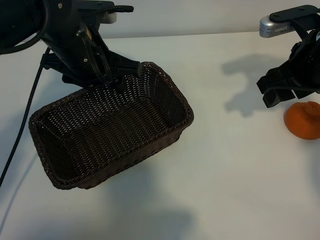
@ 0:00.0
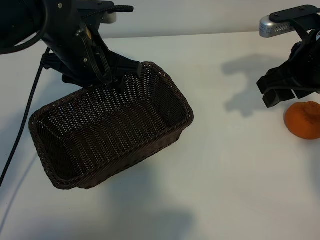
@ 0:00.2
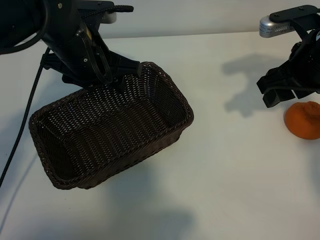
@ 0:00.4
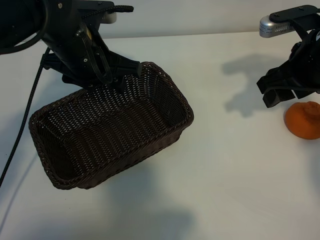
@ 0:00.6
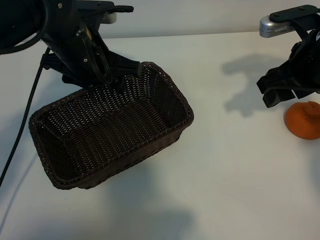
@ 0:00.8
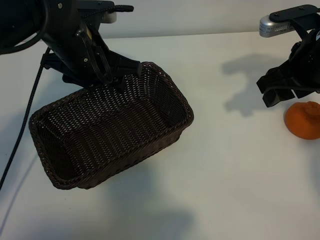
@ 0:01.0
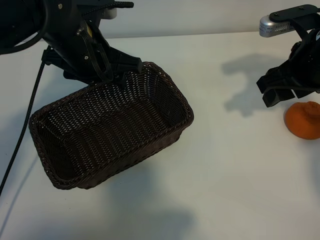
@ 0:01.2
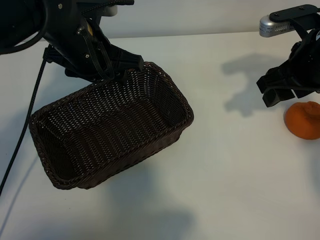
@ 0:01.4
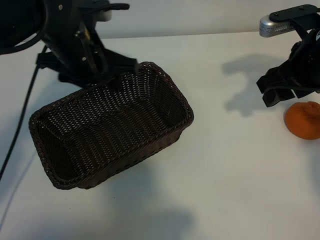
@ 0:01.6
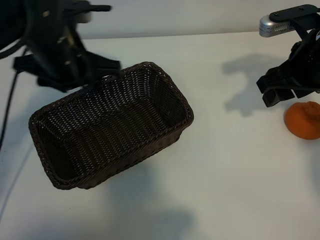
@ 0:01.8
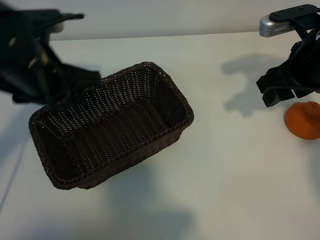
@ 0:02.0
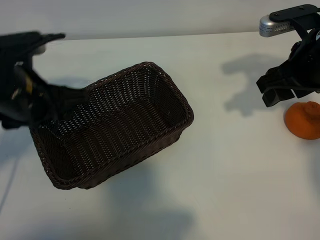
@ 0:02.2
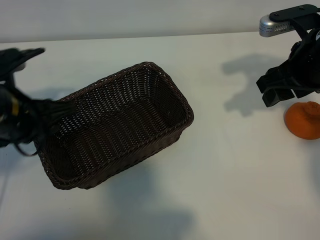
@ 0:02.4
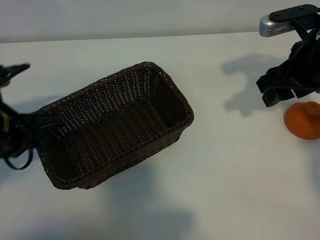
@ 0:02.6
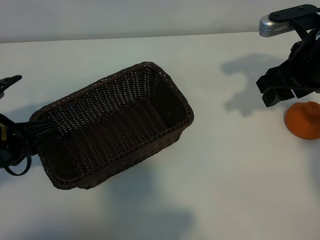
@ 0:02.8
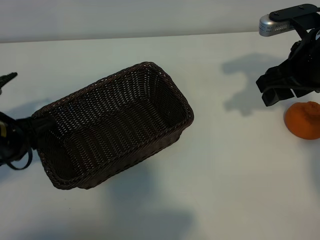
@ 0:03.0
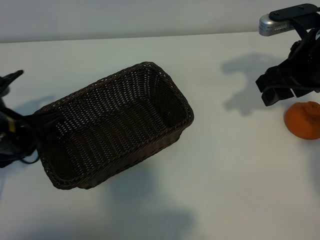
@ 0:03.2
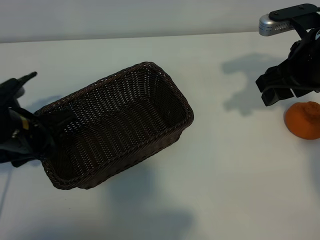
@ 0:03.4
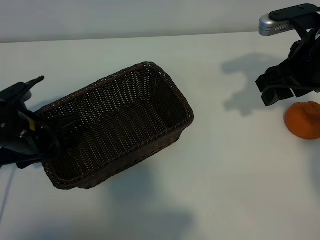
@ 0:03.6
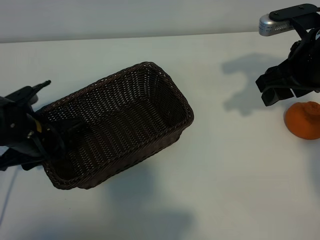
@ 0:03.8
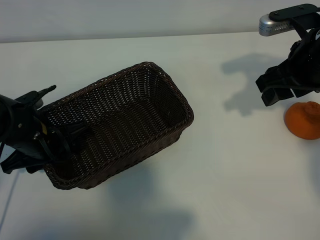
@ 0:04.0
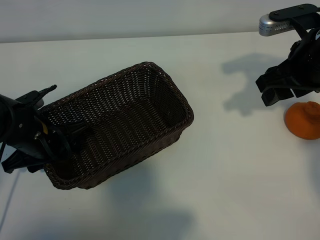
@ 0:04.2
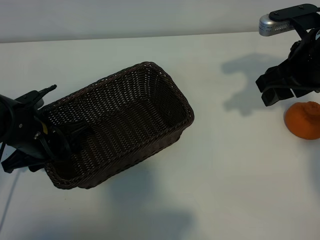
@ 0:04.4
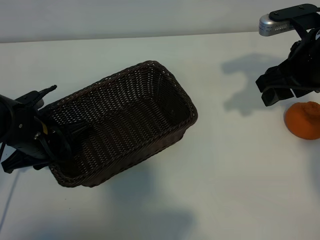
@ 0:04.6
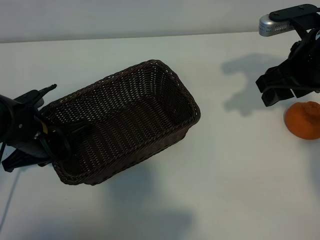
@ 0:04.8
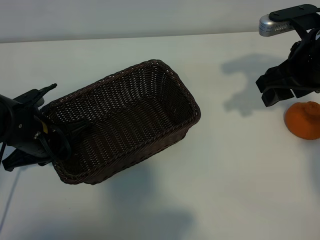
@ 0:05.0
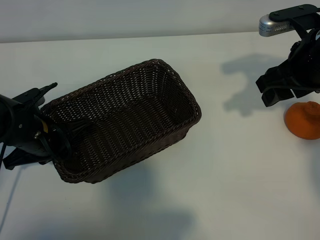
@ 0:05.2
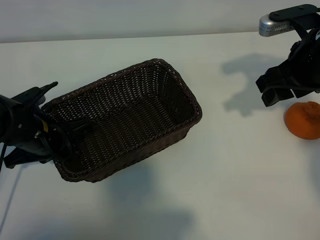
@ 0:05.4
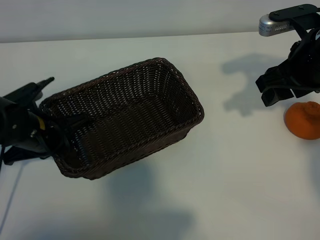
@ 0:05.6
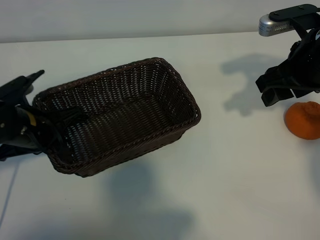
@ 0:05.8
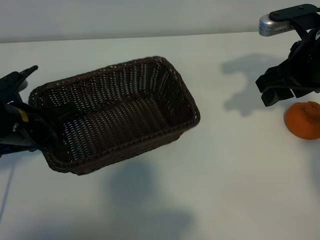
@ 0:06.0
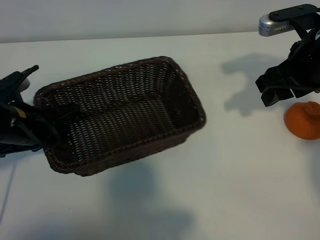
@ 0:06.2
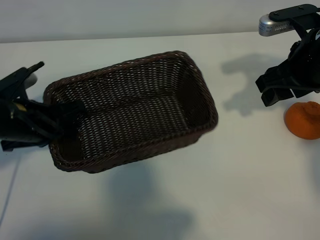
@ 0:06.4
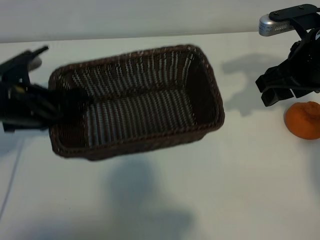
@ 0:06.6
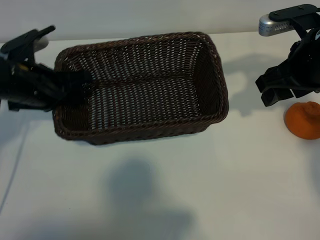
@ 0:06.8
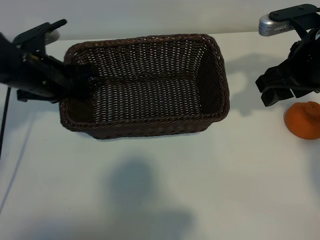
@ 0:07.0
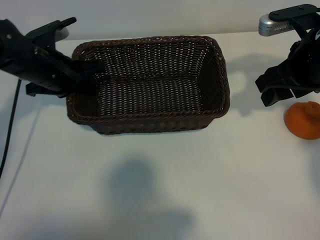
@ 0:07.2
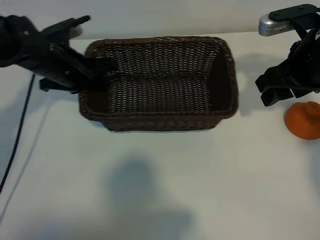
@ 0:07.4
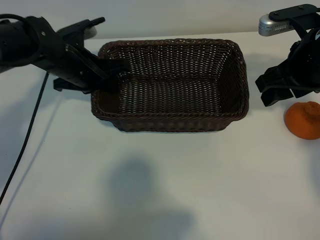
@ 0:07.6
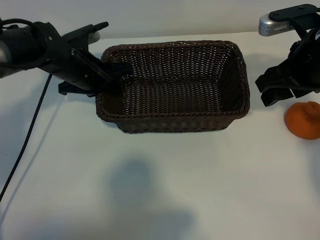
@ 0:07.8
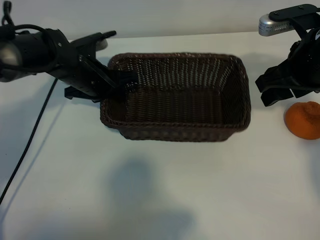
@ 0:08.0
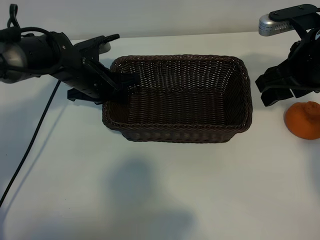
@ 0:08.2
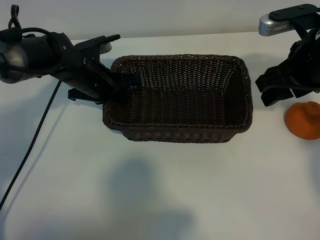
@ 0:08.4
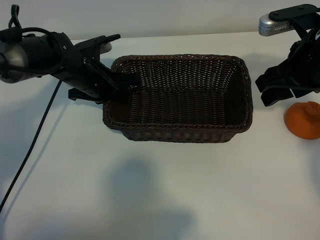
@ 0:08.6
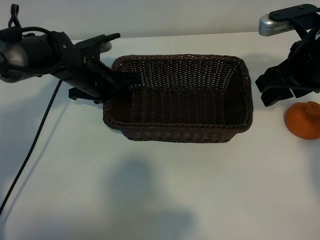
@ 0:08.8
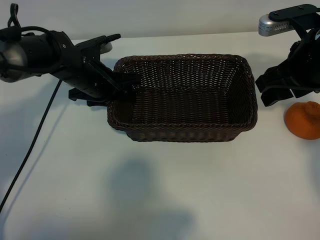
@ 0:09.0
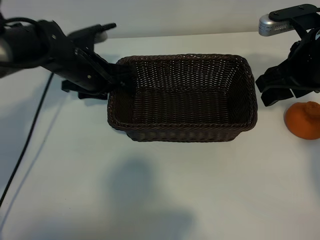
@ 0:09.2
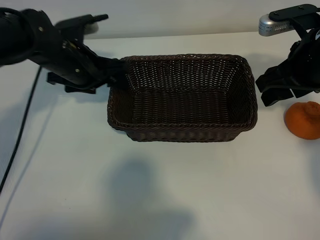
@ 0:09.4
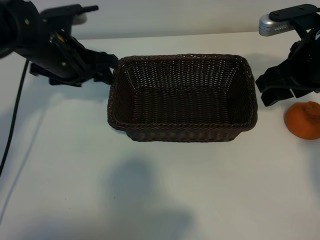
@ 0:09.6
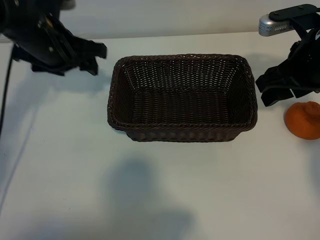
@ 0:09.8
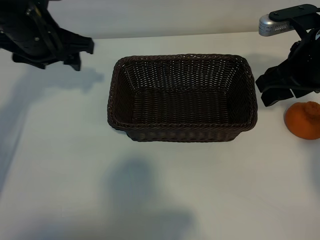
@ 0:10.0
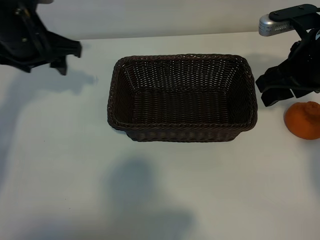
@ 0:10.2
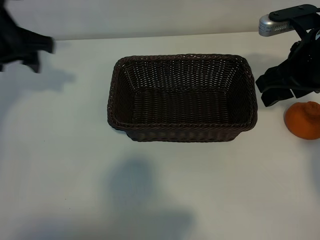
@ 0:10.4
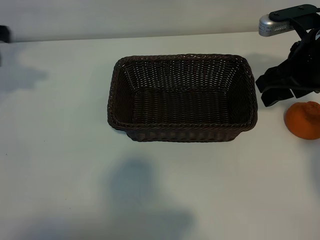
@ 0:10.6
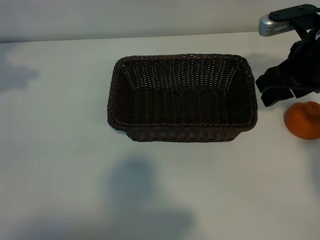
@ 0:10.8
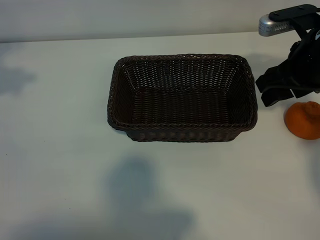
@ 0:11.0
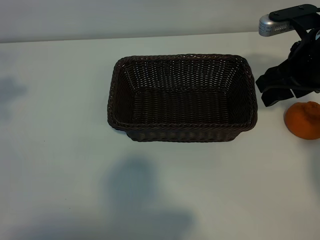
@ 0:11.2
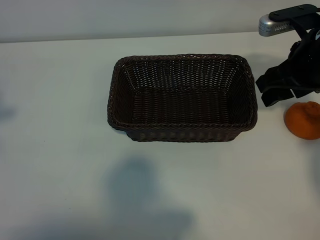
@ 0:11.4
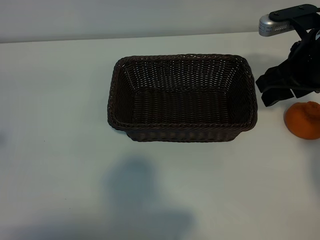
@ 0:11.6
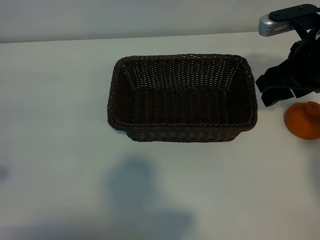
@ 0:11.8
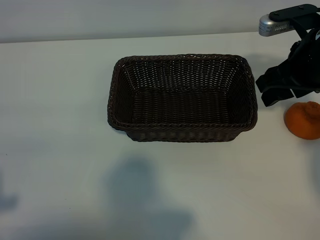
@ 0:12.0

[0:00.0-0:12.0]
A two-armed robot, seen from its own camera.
Task of the whole recording: pick up the orange and put it into the basket.
Step, 0:01.0 to 0:04.6: Grasp the basket with left gripper.
Step, 0:05.0 to 0:08.8: Place the basket in the center of view with left gripper.

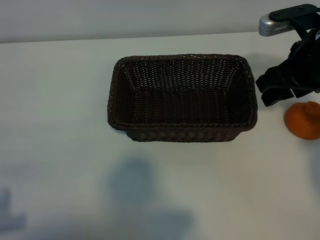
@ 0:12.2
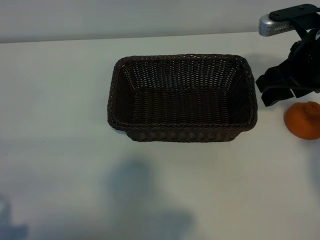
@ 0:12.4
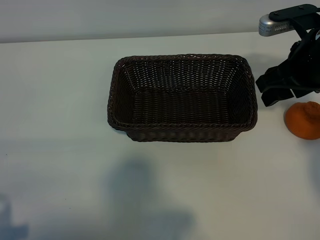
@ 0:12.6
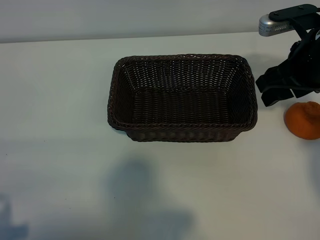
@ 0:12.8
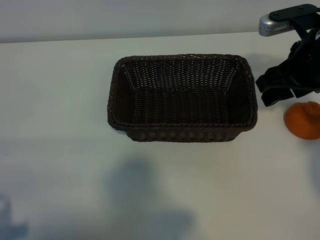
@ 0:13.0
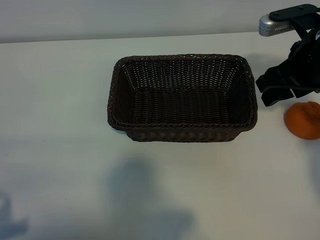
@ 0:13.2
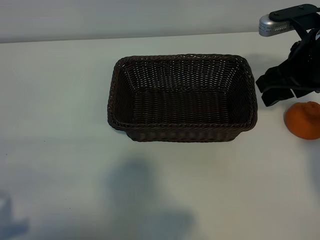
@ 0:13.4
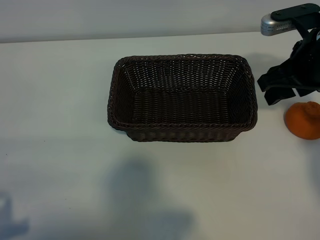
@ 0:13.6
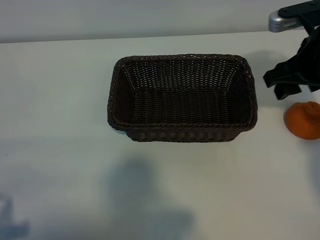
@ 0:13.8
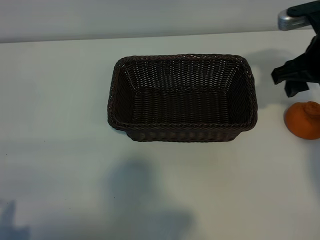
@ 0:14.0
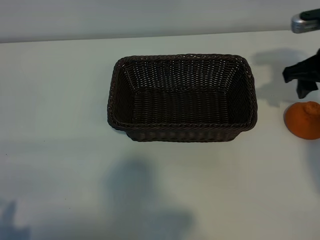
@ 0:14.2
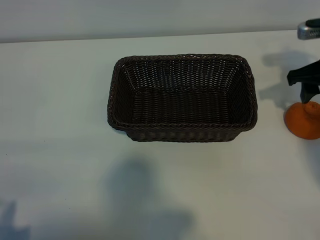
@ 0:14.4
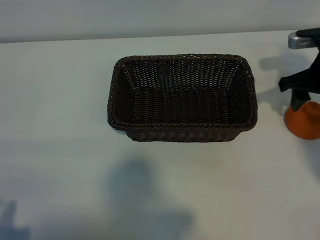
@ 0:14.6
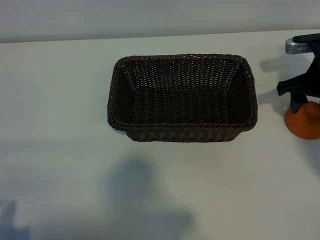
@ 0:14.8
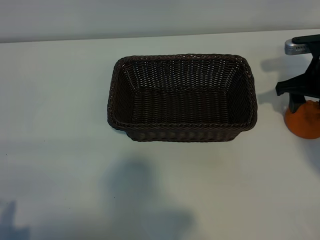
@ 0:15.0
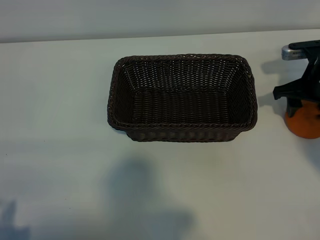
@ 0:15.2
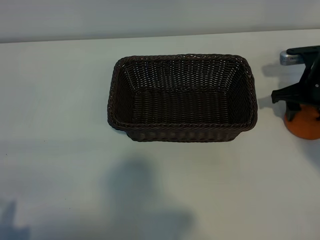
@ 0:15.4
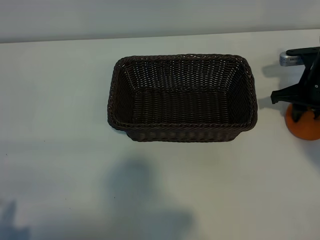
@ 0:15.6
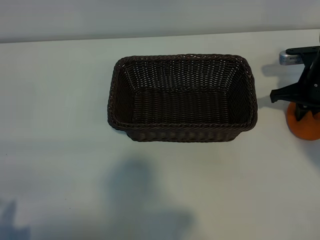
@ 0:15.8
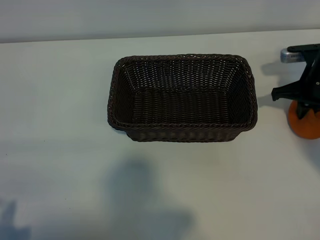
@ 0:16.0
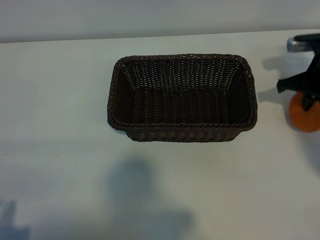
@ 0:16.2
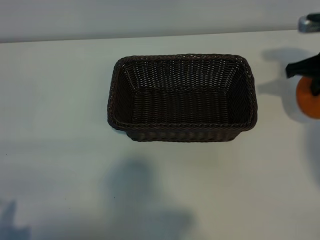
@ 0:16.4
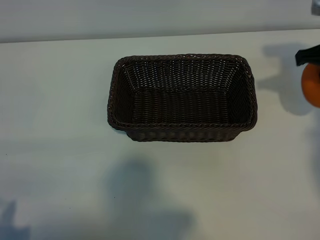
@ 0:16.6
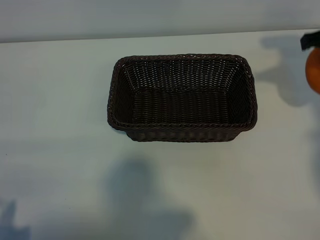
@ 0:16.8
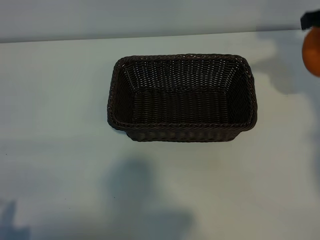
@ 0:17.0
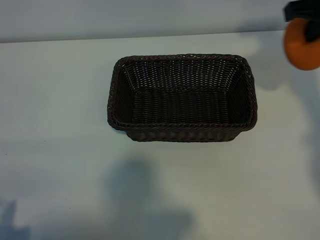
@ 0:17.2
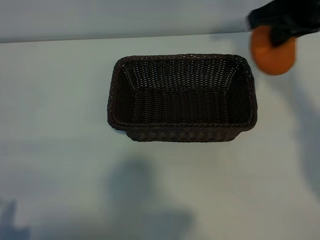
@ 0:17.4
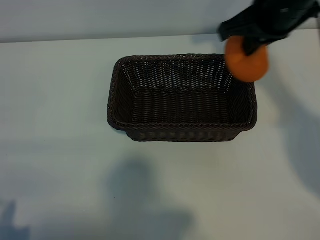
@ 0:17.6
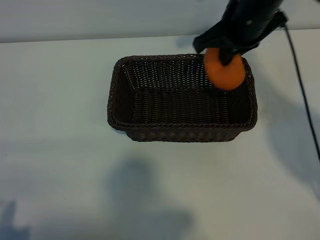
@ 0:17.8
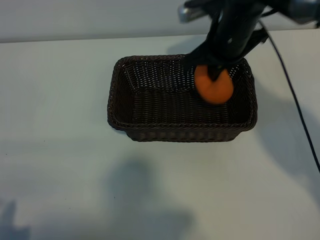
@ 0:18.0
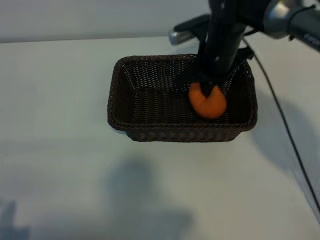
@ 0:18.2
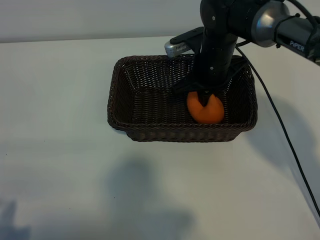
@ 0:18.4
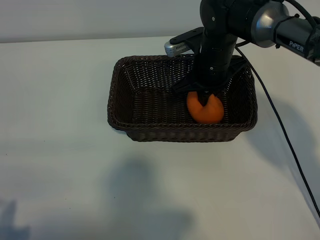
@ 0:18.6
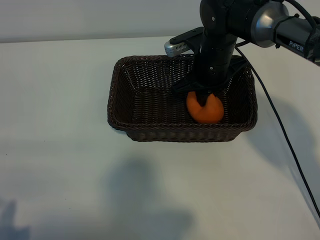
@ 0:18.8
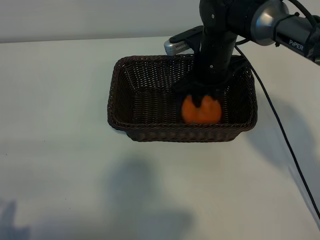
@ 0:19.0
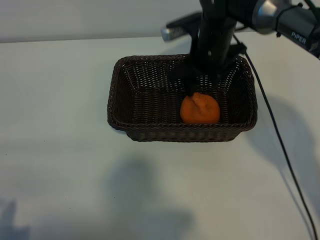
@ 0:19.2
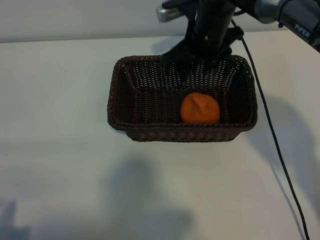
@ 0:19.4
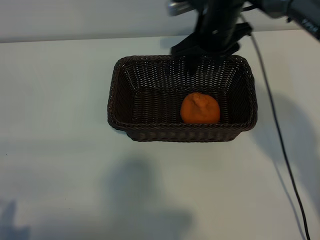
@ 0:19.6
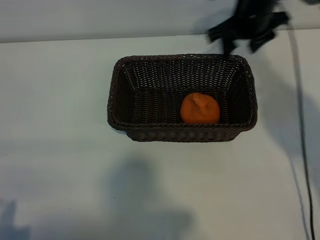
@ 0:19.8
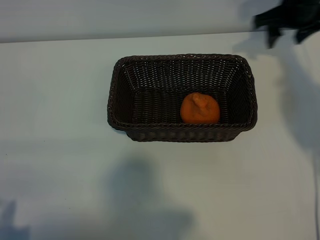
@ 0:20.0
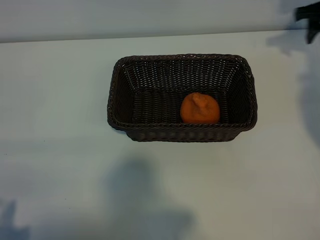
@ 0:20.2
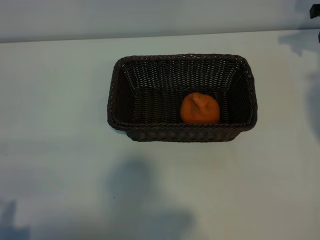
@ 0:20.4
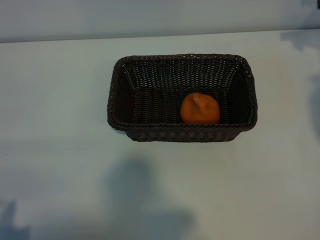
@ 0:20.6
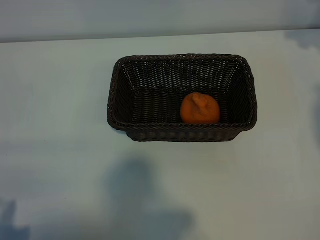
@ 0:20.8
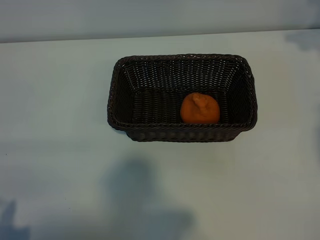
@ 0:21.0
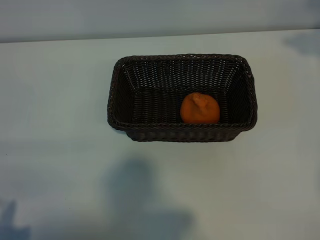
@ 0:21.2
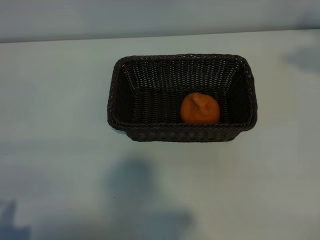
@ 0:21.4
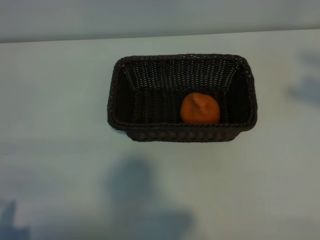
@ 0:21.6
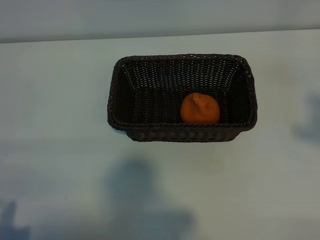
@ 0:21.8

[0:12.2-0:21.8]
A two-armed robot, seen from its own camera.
Task of the whole recording: pick up the orange and put it into the basket.
Step, 0:12.2 to 0:15.6: Grasp the orange with right gripper.
Step, 0:16.0 to 0:19.0: Place the orange in the basket with right gripper.

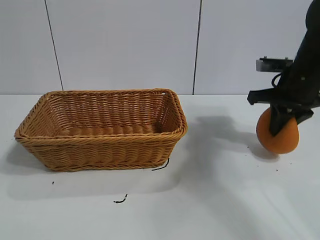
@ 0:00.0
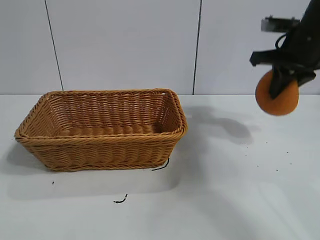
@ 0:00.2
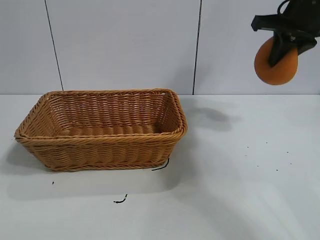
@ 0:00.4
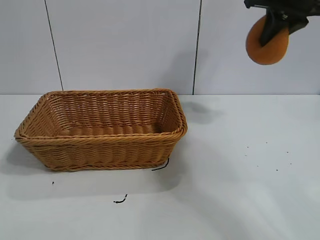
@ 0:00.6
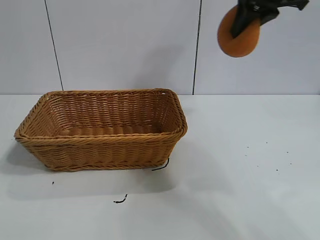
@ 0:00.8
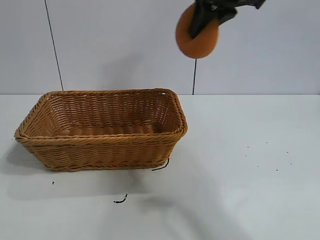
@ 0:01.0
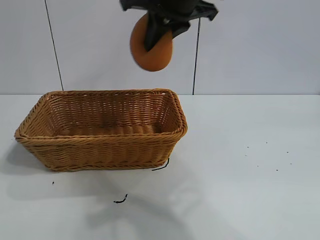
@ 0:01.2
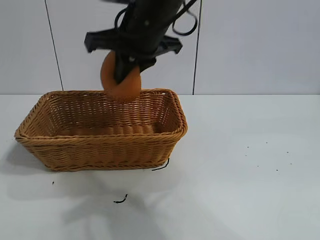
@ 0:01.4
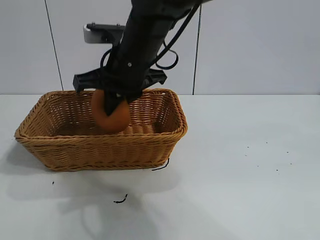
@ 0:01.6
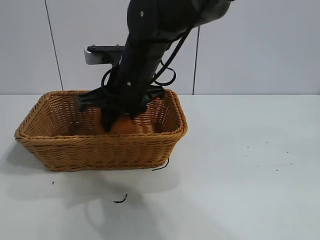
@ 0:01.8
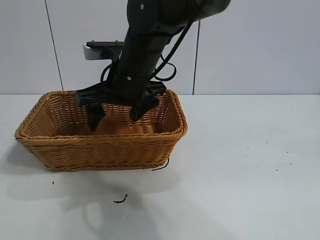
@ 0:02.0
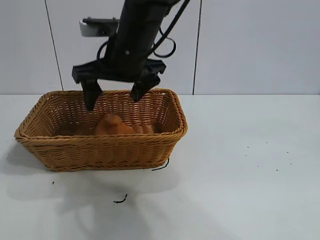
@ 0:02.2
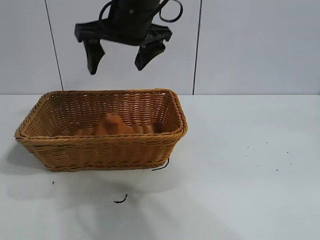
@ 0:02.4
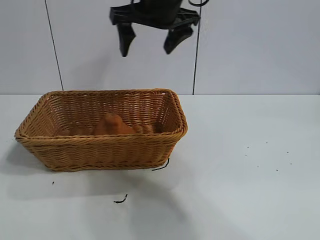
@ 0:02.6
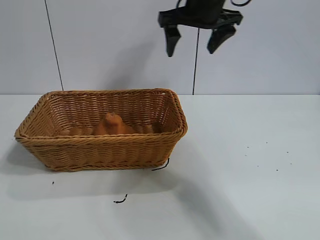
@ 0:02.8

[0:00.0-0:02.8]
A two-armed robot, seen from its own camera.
Task of the whole recording: pick up the orange and put it into the basket.
Step, 0:00.2 to 0:02.0: Place the orange in the basket with right gripper.
